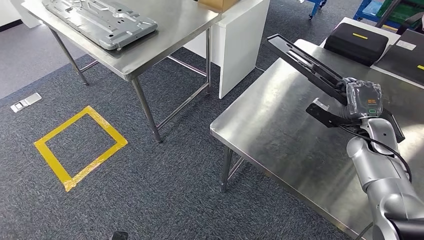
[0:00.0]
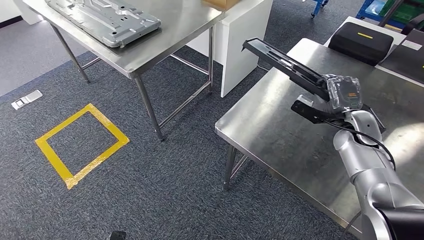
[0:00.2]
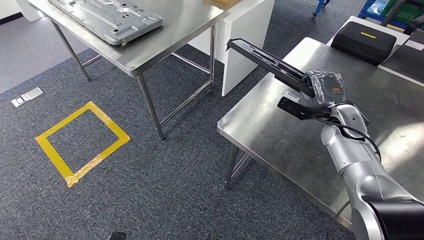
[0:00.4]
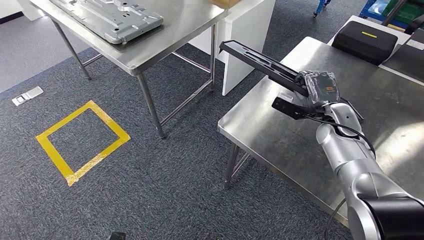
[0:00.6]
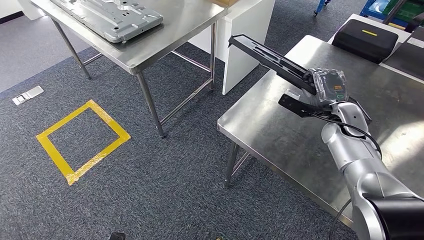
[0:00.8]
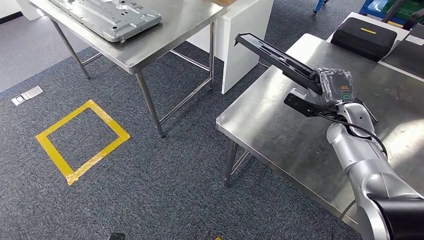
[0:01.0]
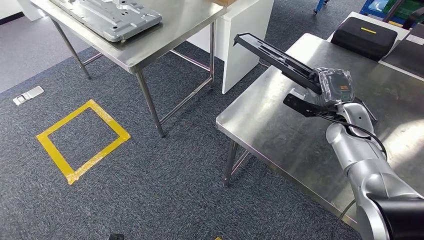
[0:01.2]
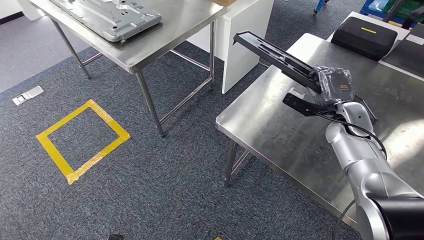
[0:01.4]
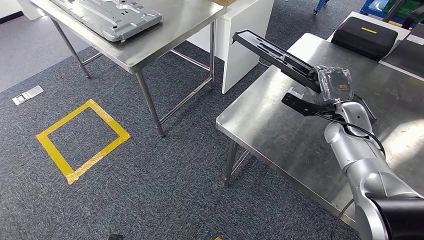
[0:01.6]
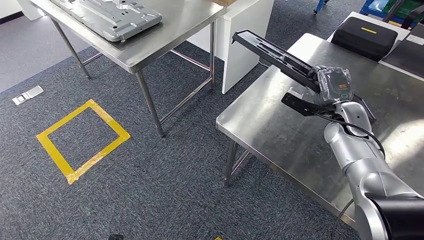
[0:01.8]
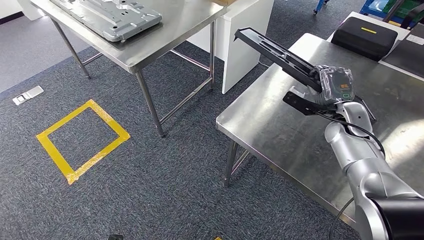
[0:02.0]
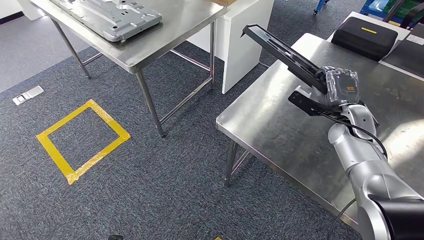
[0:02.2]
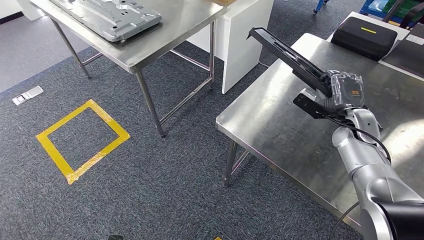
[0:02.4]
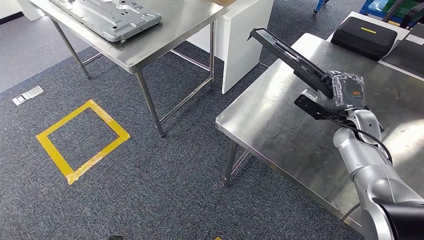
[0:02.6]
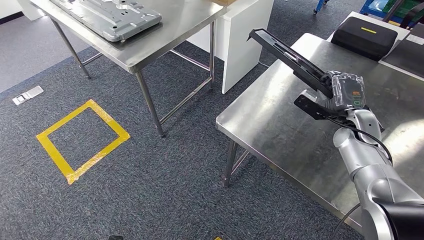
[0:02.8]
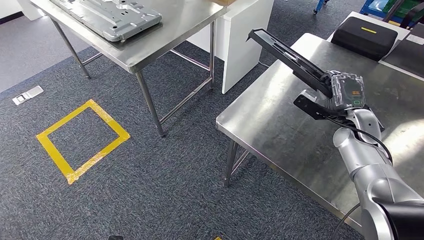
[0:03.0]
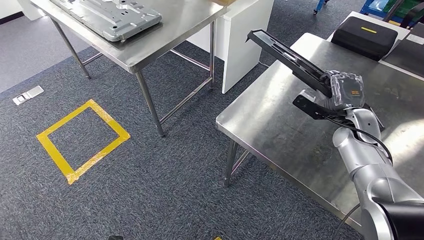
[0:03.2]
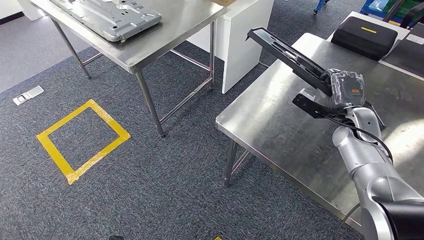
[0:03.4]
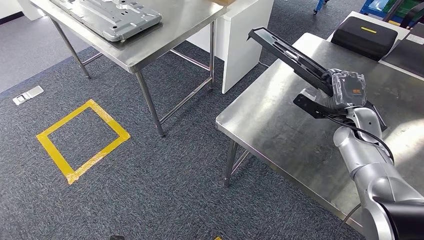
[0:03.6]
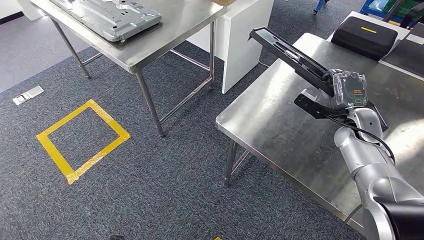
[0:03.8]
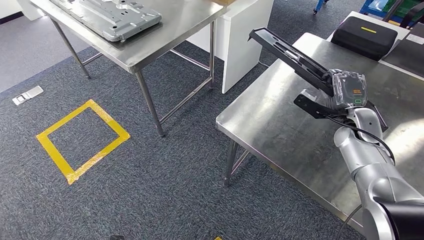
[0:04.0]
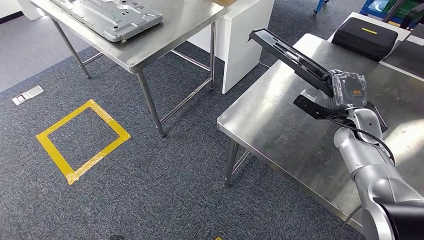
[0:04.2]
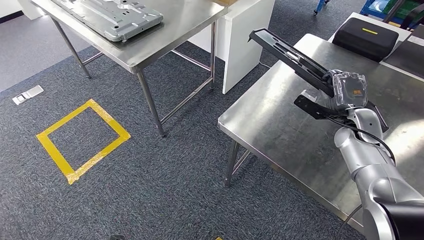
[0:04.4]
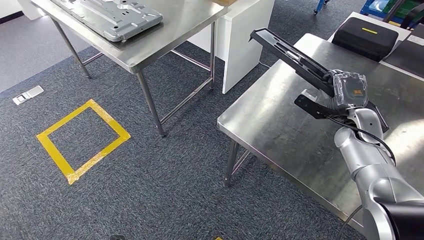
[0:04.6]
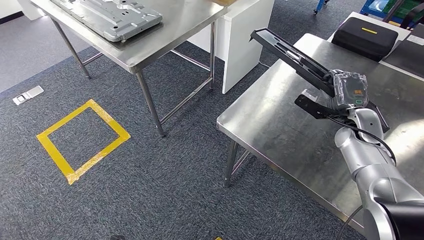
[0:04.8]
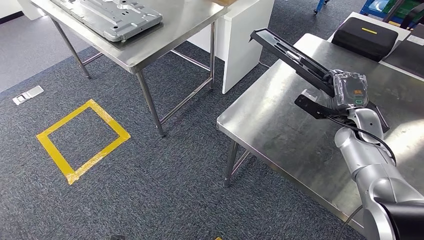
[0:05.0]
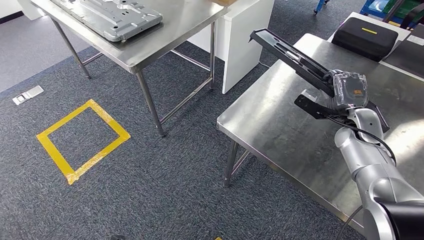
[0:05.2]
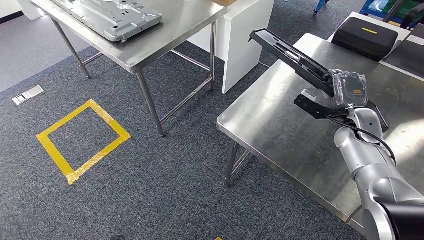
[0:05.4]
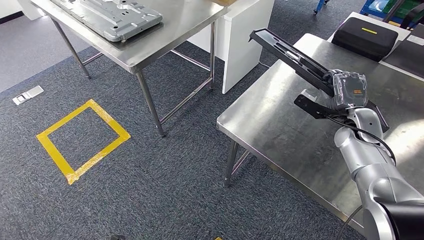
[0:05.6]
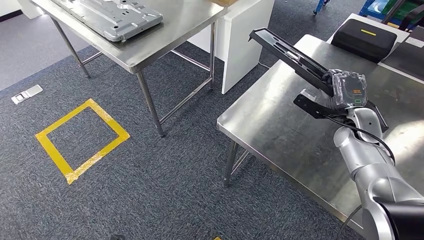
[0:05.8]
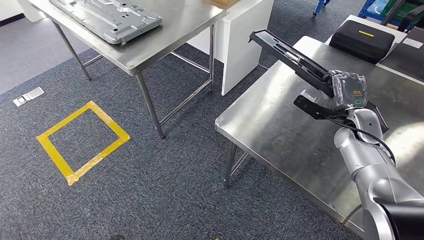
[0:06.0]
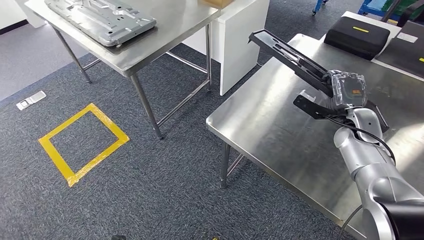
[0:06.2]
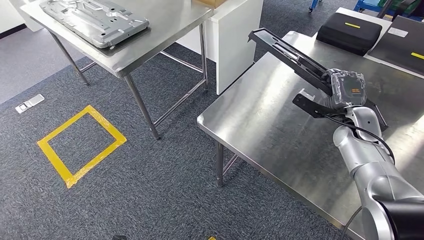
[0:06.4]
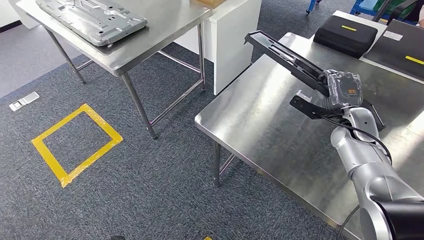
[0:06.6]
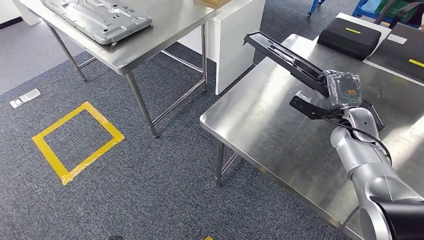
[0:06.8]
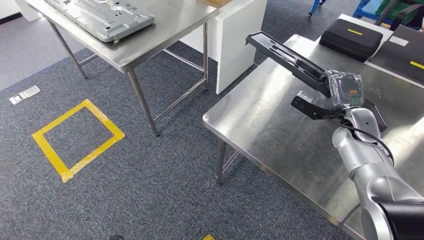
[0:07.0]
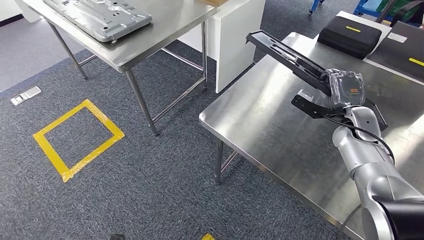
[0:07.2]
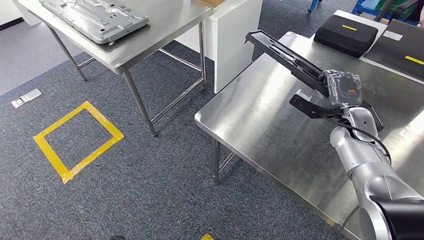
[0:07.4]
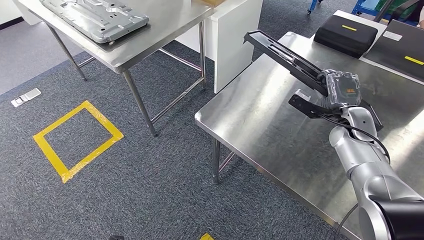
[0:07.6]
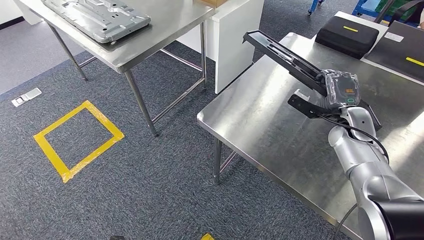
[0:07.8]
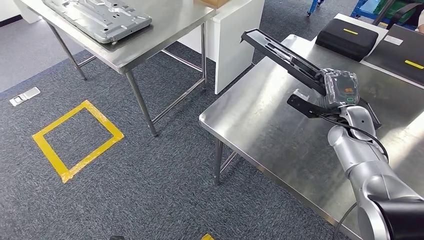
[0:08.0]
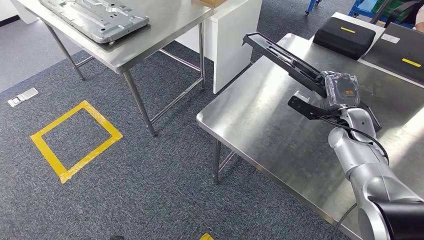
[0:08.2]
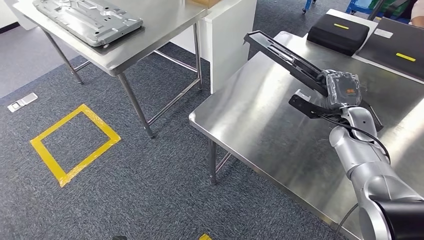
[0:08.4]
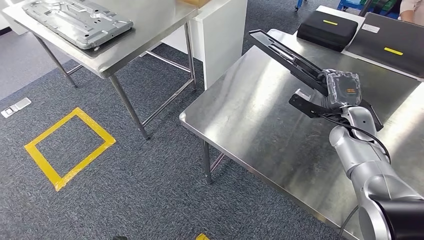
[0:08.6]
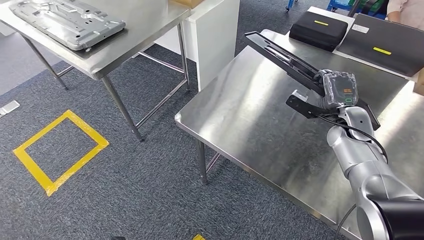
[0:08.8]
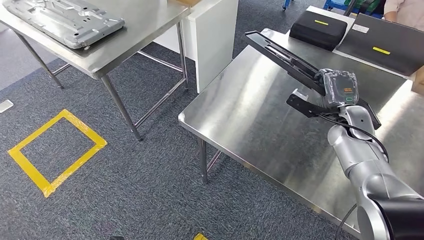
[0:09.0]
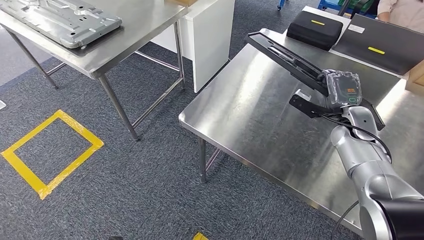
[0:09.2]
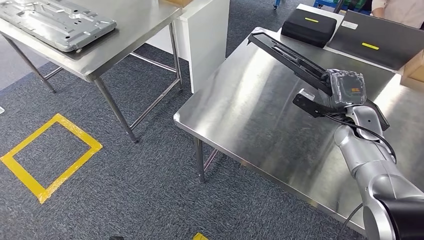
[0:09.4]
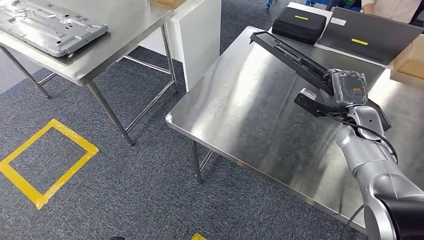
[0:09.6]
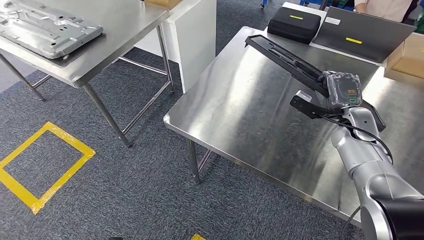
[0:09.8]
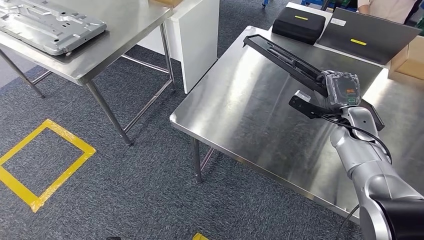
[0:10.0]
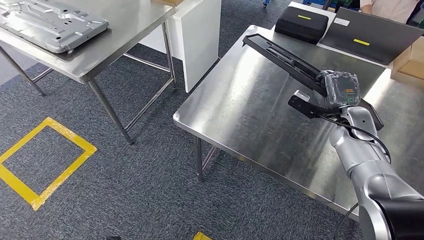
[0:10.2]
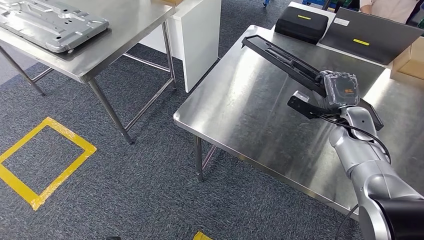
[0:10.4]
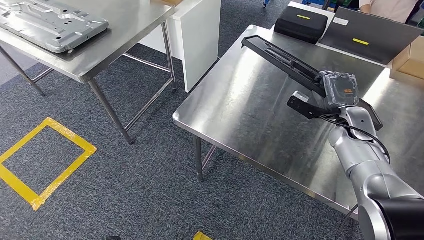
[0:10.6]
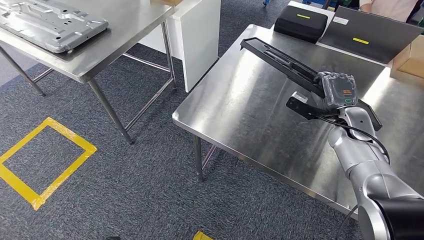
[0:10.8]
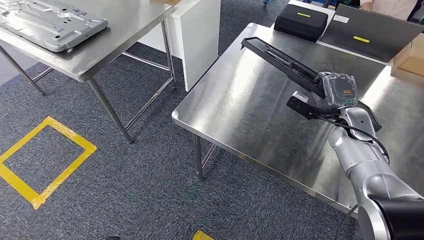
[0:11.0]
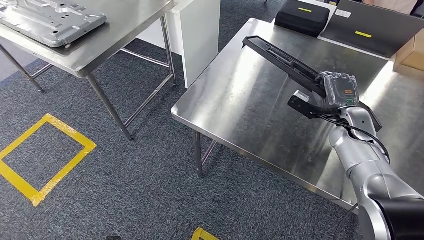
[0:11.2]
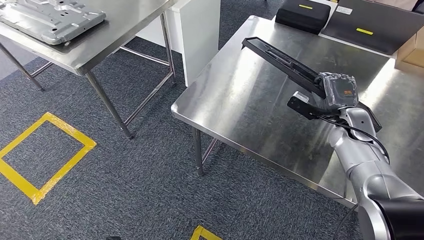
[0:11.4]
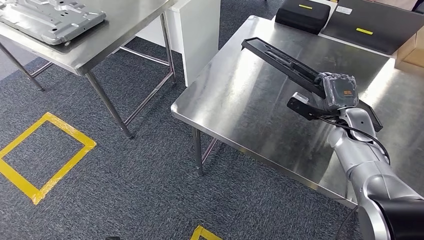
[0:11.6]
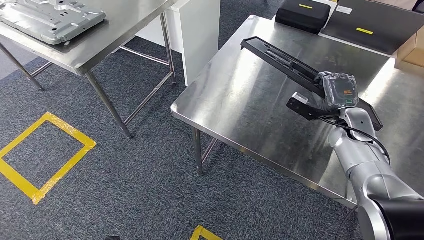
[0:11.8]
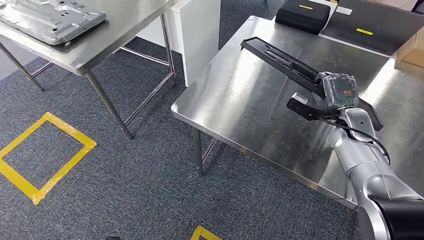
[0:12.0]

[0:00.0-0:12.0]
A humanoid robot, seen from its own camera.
Step, 0:00.0 to 0:03.4: Move the large material to the workbench.
0:01.6 to 0:04.4: There are only small adjustments of the hands.
0:04.4 to 0:06.0: The two hands keep their place.

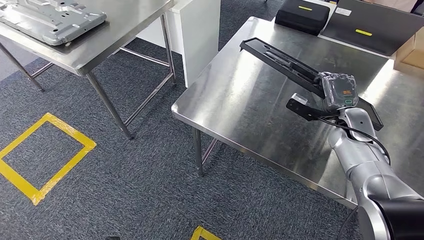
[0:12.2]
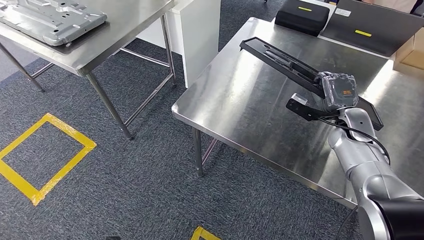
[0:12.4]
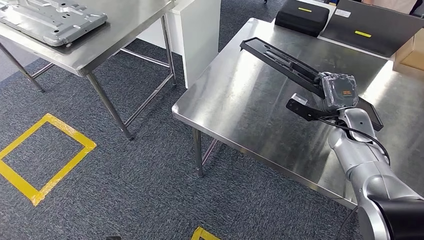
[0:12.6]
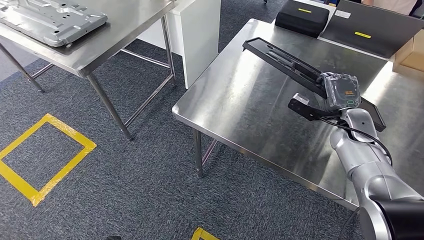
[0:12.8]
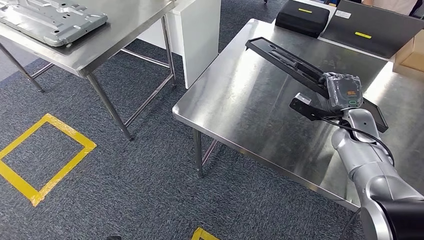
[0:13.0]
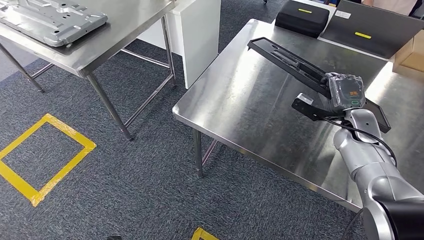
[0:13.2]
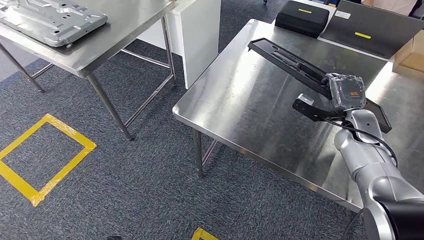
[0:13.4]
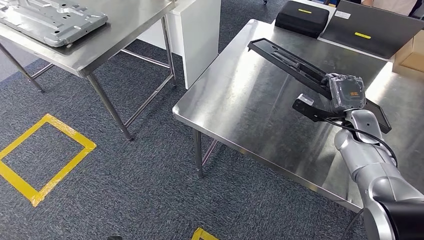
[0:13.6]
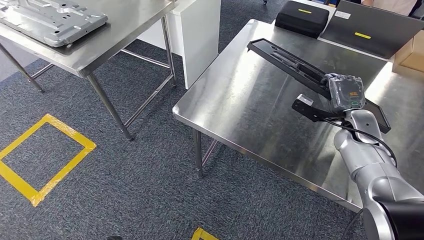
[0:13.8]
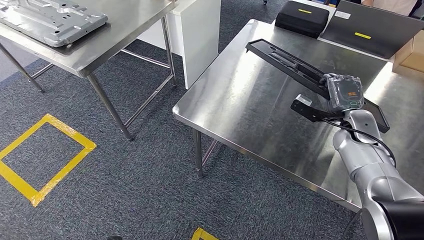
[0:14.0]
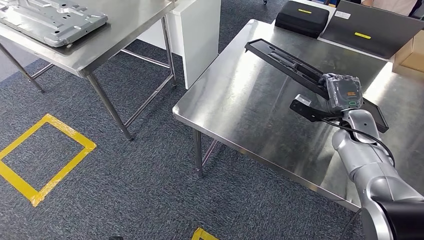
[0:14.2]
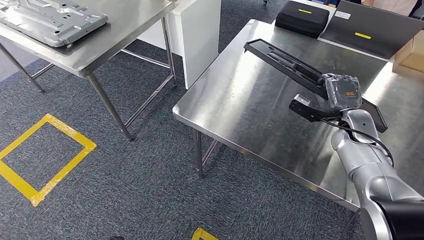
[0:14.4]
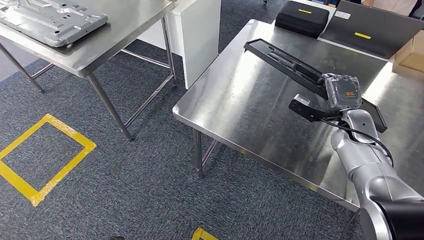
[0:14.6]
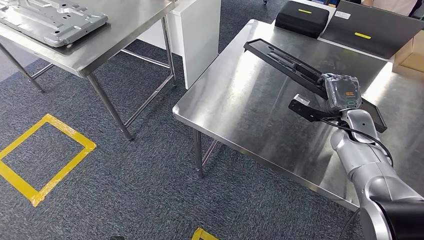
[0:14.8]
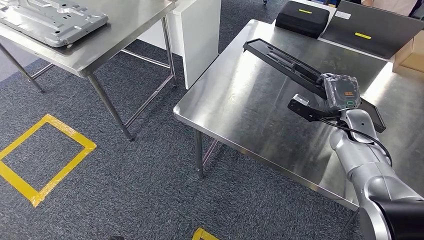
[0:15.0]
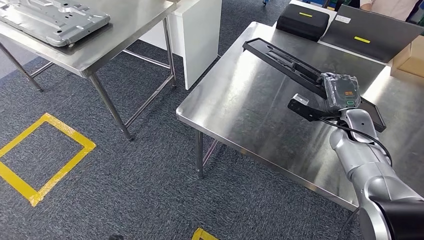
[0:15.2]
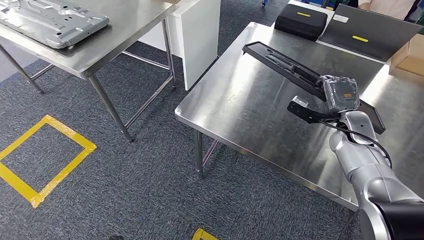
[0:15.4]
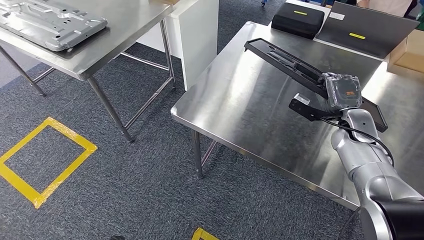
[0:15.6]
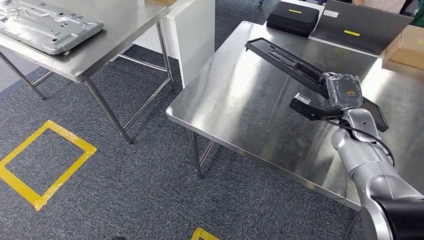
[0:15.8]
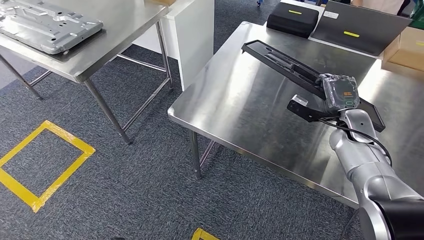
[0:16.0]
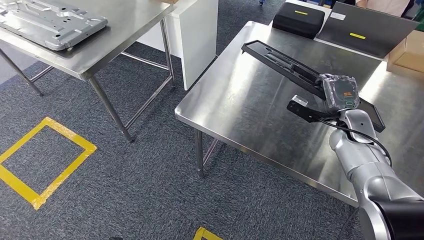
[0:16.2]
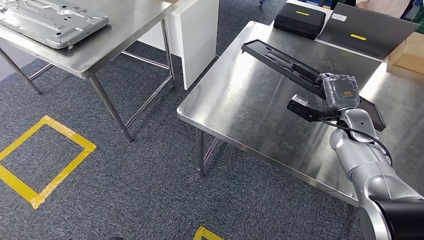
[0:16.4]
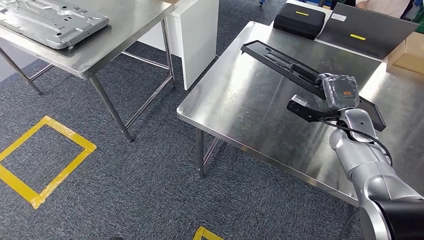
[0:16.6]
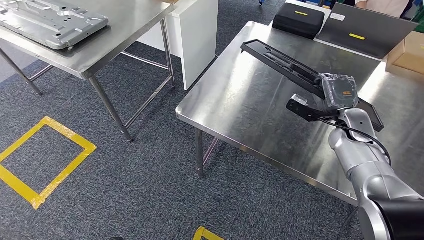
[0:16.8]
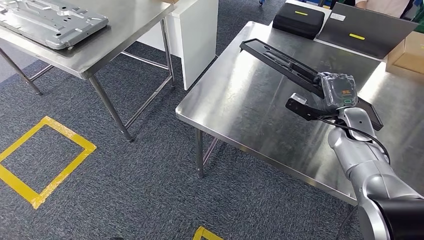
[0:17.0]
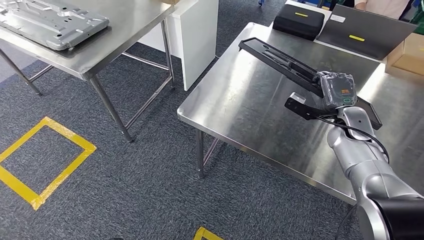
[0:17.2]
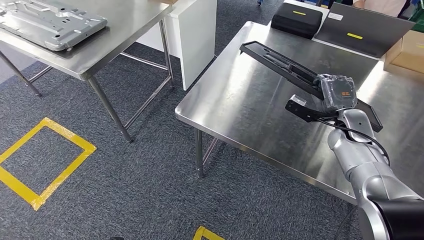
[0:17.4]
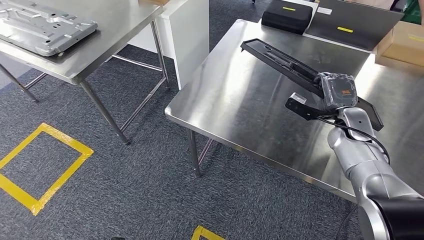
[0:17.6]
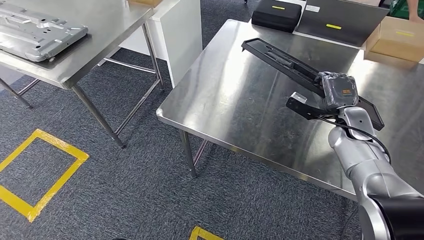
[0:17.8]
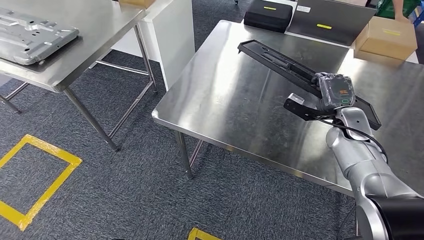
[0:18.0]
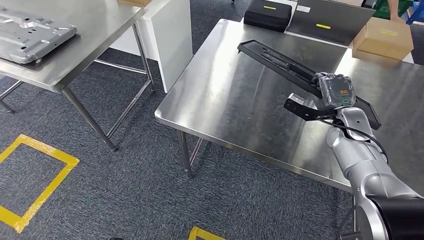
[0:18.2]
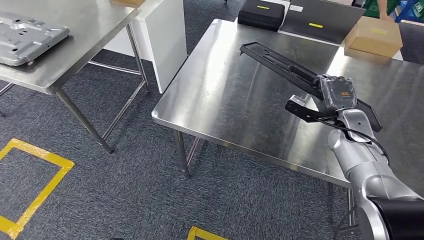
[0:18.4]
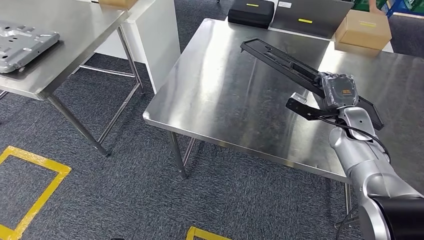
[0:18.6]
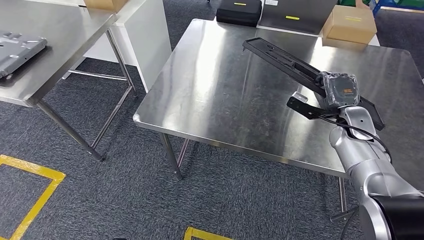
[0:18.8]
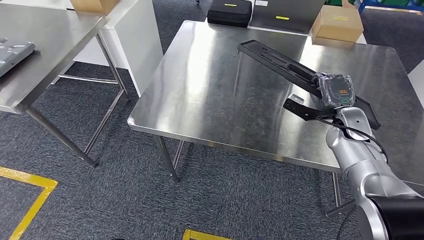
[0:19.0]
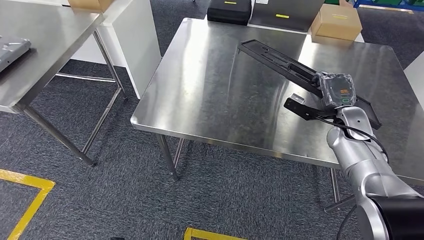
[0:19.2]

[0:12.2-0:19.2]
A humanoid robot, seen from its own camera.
0:12.2 to 0:15.0: The hands move only a little.
0:15.0 to 0:16.4: Both hands stay about where they are.
